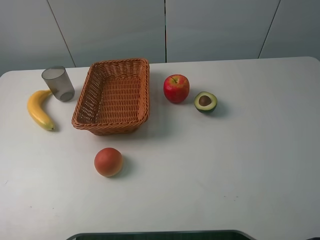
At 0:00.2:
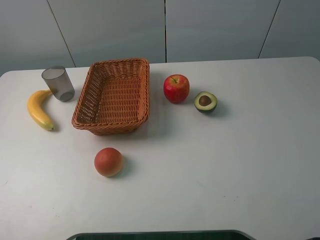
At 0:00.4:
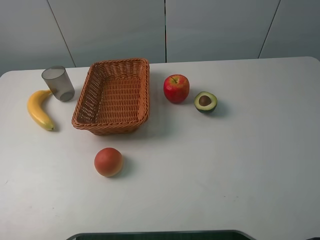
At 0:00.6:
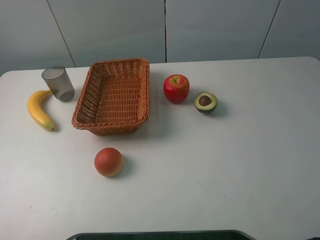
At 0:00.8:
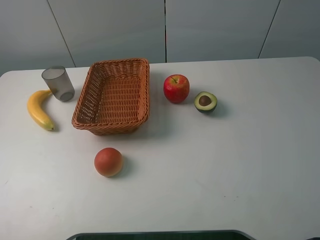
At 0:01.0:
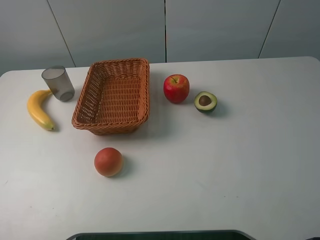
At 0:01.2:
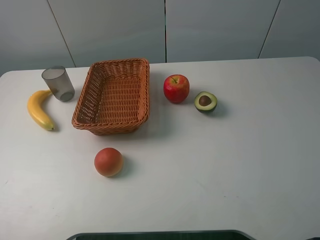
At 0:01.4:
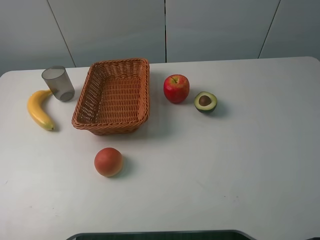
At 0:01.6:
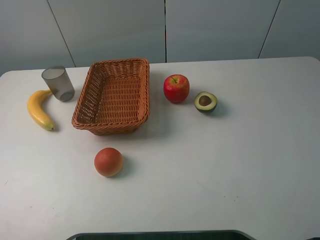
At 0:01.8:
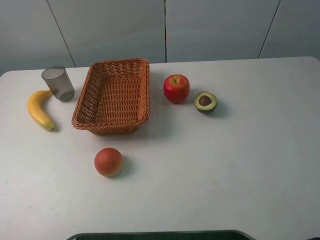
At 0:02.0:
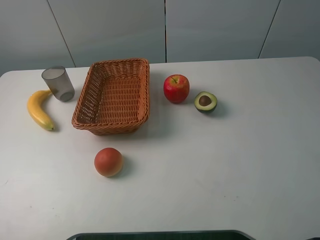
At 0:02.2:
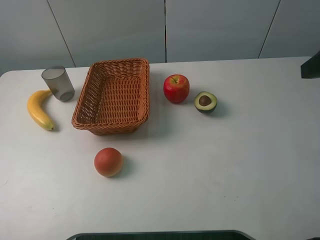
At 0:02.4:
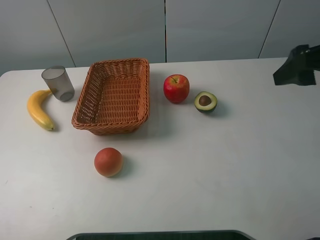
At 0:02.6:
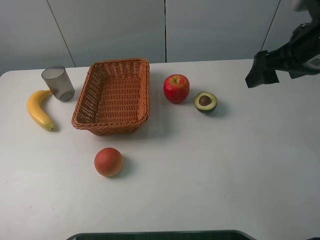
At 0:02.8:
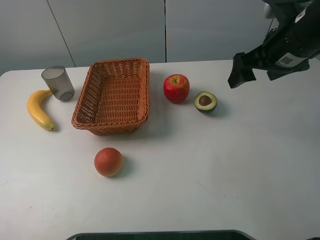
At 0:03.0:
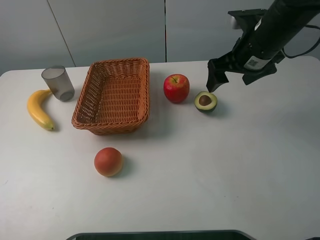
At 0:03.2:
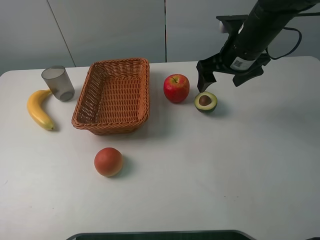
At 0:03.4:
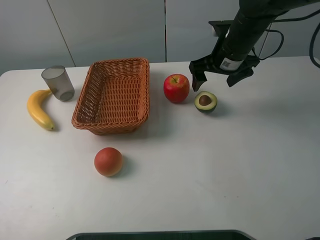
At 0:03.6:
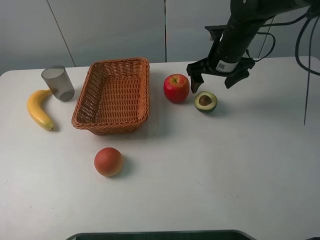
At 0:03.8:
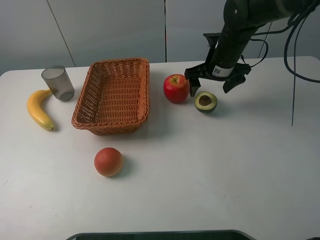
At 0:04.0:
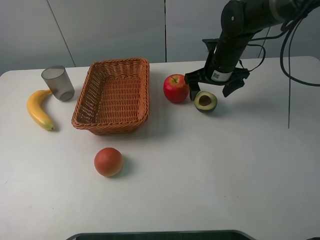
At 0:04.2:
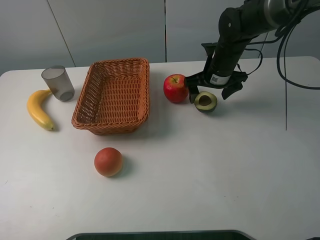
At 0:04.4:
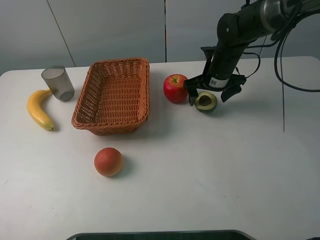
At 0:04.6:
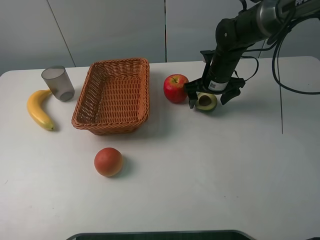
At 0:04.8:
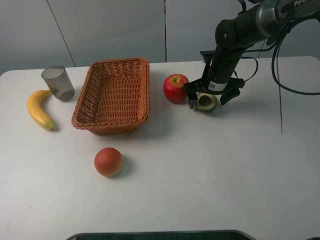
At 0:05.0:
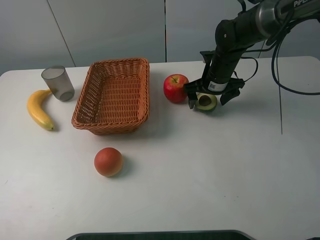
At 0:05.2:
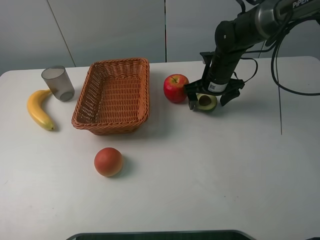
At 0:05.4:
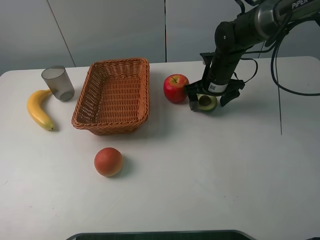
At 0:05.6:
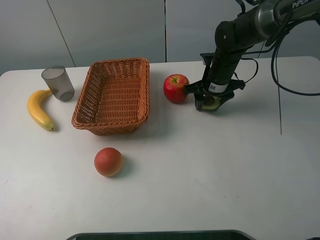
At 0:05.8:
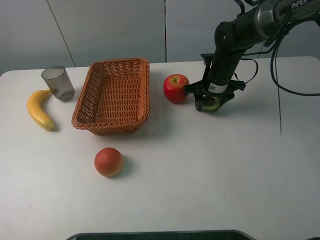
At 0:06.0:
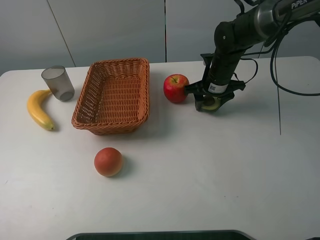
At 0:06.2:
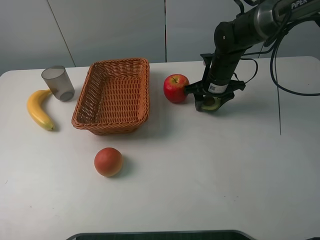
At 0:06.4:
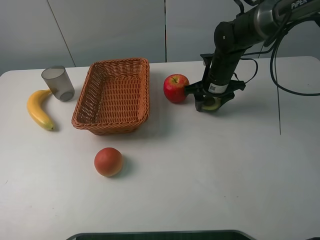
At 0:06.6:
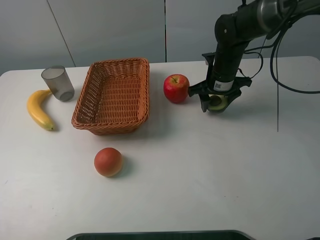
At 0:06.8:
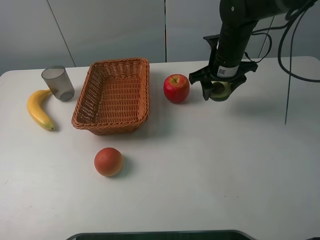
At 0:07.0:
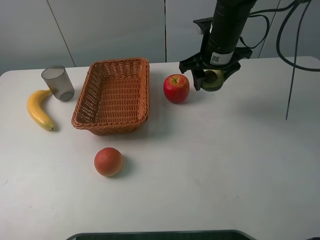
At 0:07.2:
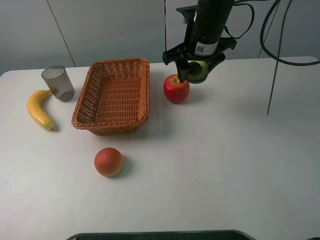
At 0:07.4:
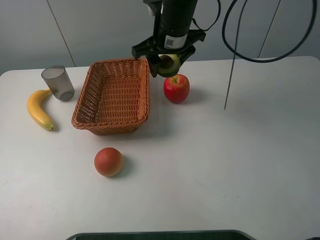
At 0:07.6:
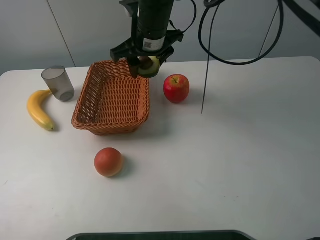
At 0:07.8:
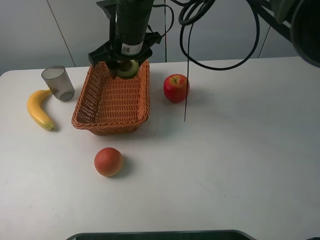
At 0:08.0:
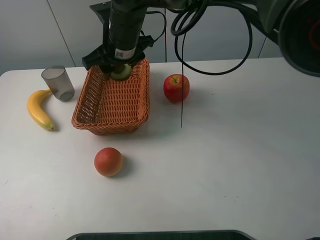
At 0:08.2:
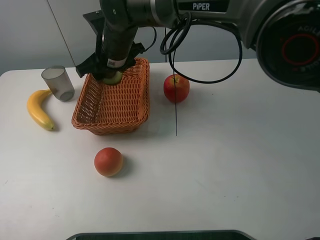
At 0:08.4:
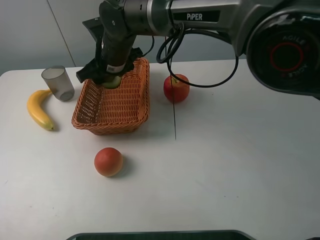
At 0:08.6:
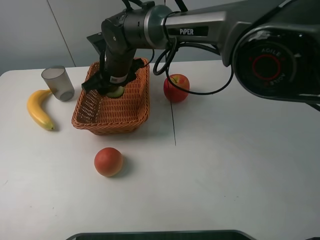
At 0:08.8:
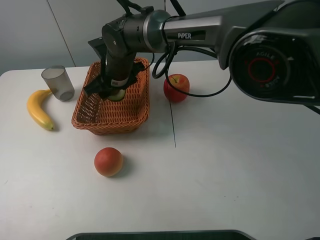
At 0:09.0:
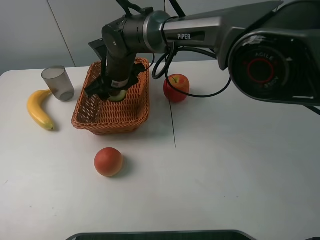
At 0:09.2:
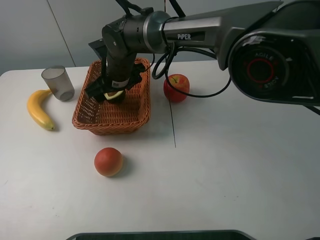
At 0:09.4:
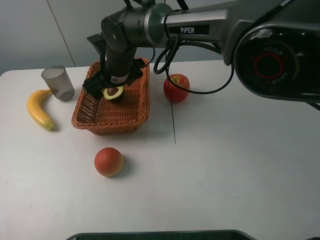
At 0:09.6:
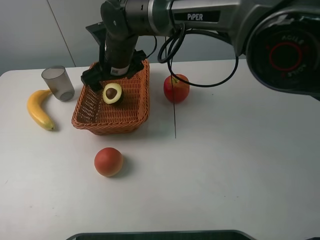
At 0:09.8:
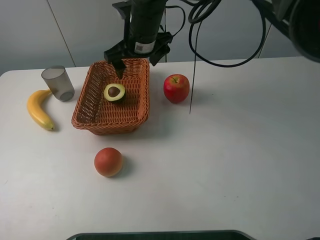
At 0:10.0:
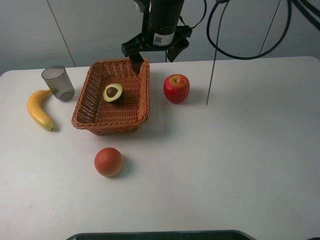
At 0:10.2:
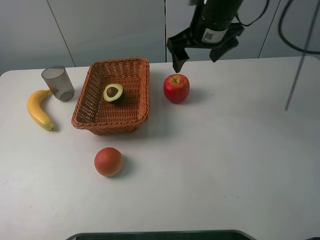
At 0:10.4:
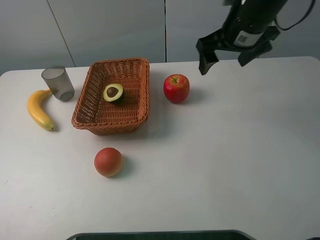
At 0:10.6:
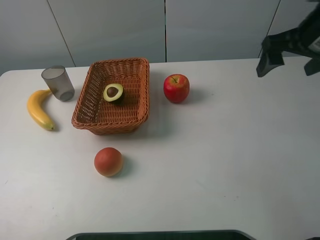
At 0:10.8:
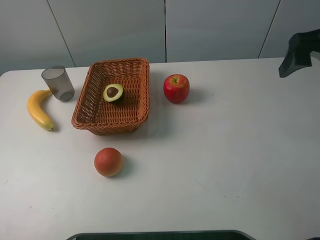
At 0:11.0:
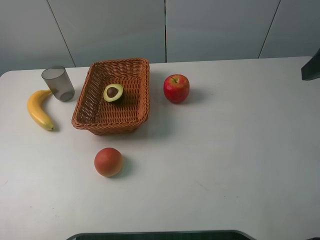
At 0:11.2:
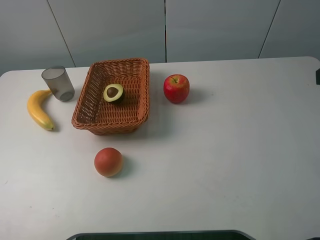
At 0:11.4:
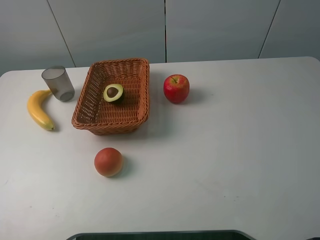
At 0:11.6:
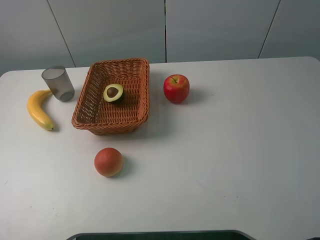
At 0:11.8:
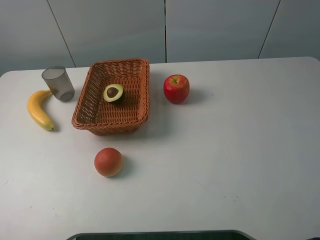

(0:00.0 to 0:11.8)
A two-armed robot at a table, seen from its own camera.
0:01.4 - 0:03.0: The right gripper shifts approximately 35 cm forward, downward and to the left.
0:03.0 - 0:04.4: The right gripper travels downward and forward by roughly 15 cm.
0:04.4 - 0:06.0: The right gripper closes.
0:06.0 - 0:07.4: The right gripper shifts some 20 cm upward and to the left.
0:07.4 - 0:08.8: The right gripper heads to the left and downward, covering roughly 15 cm.
0:08.8 - 0:10.4: The right gripper travels to the right and upward by about 30 cm, and opens.
0:10.4 - 0:11.8: The right gripper is displaced backward by about 30 cm.

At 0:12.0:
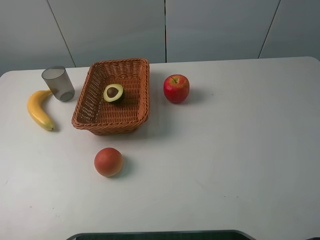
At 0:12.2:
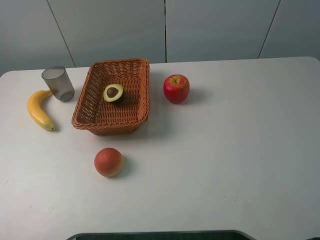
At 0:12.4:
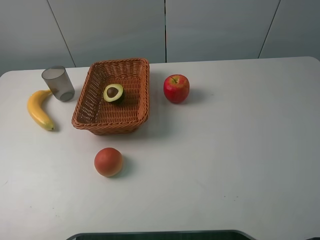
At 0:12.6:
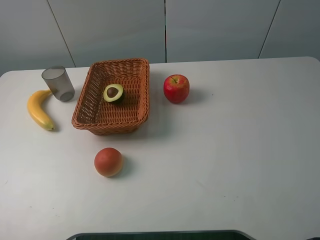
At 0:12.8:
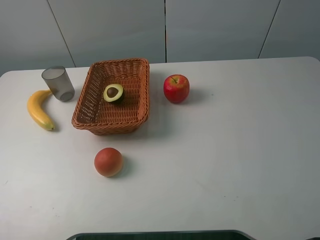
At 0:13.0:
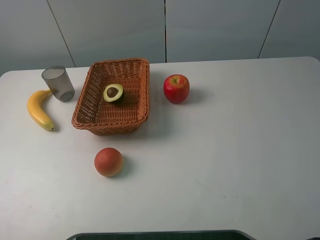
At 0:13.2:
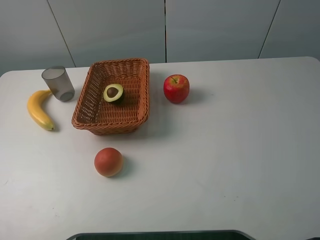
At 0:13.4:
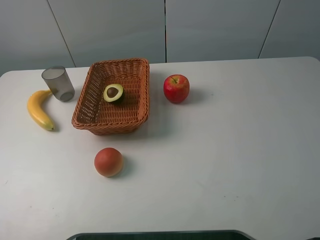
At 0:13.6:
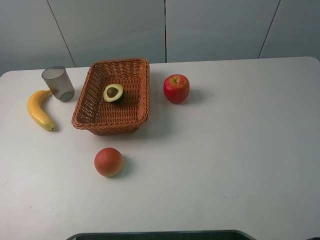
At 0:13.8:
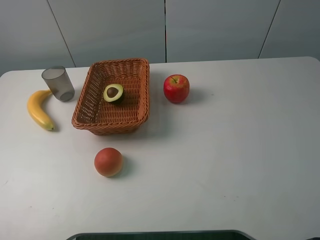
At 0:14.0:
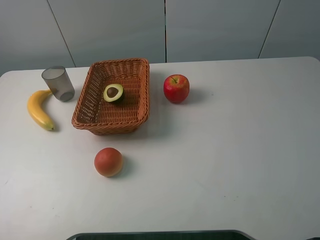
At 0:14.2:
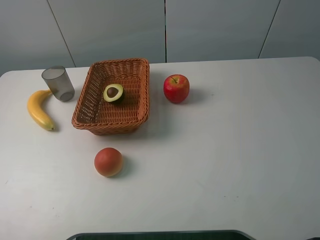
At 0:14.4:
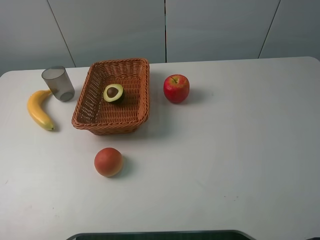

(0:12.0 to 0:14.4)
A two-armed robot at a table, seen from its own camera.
0:13.2 - 0:14.4: Neither gripper changes place.
